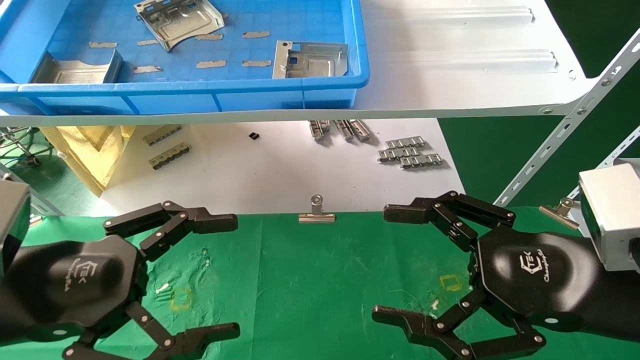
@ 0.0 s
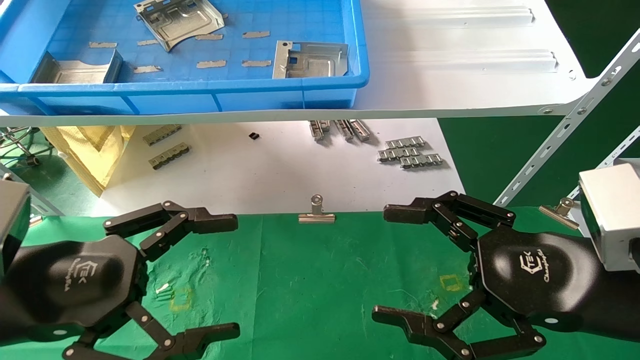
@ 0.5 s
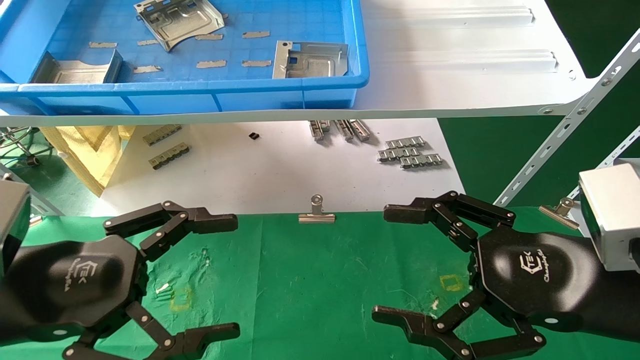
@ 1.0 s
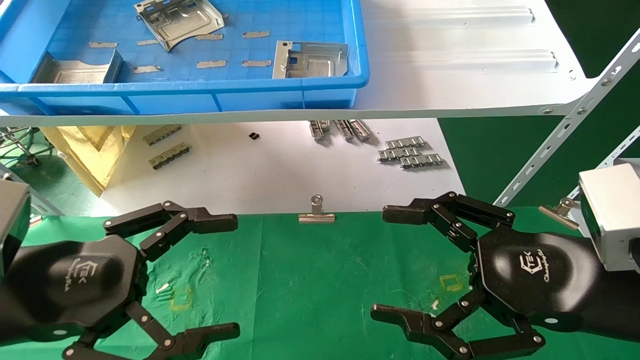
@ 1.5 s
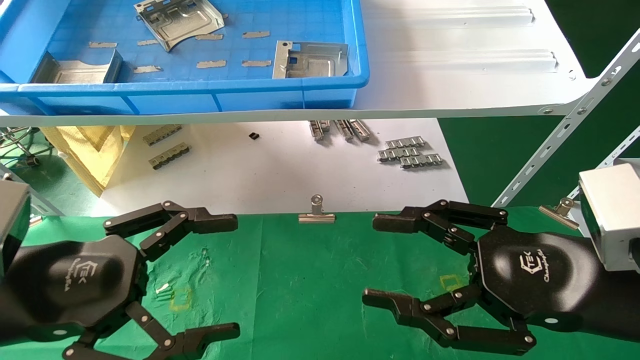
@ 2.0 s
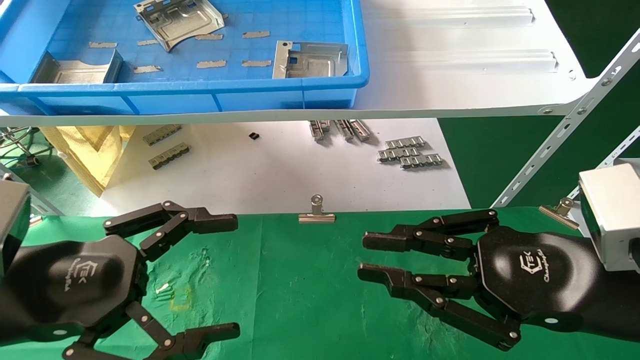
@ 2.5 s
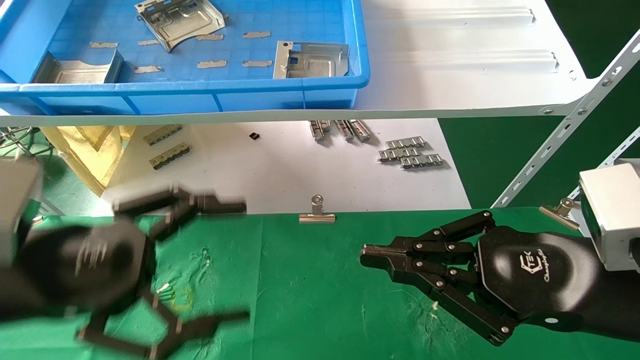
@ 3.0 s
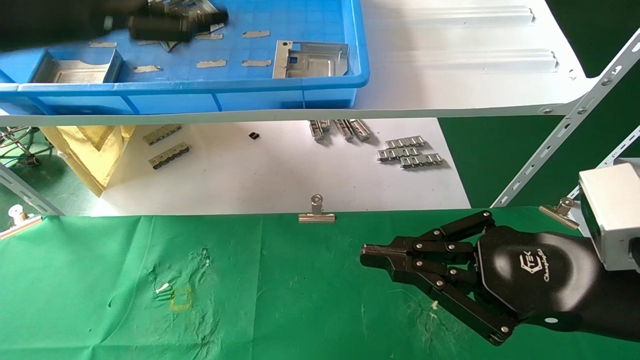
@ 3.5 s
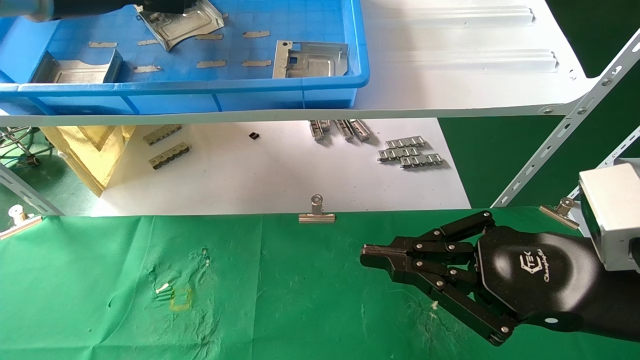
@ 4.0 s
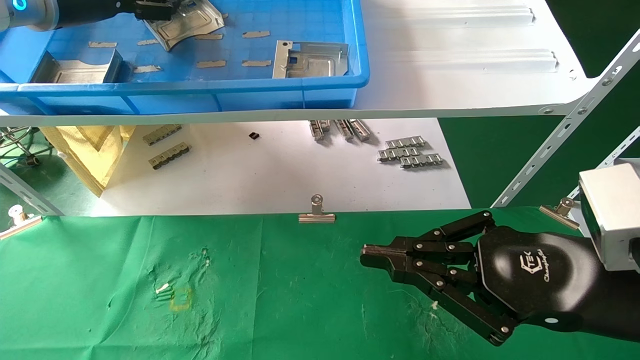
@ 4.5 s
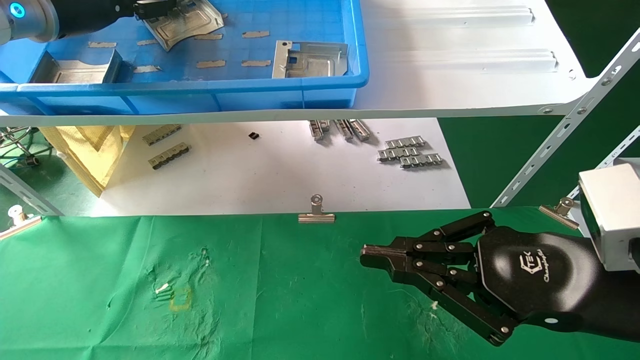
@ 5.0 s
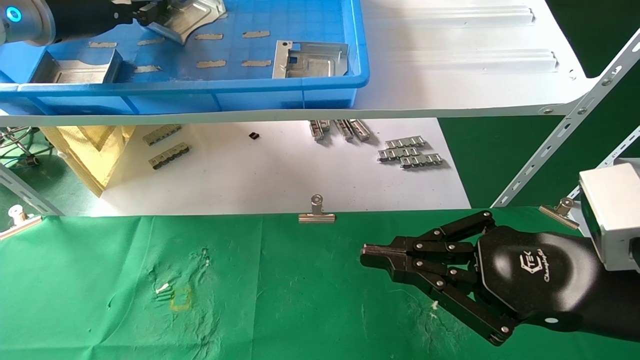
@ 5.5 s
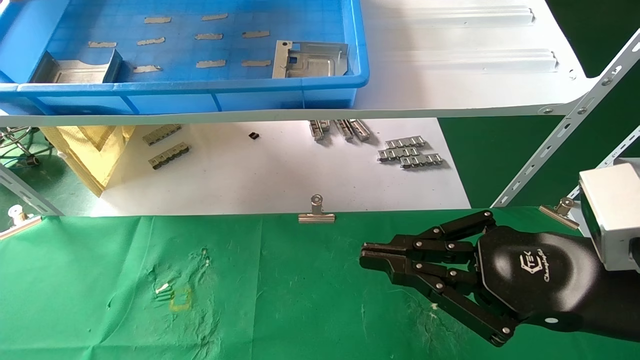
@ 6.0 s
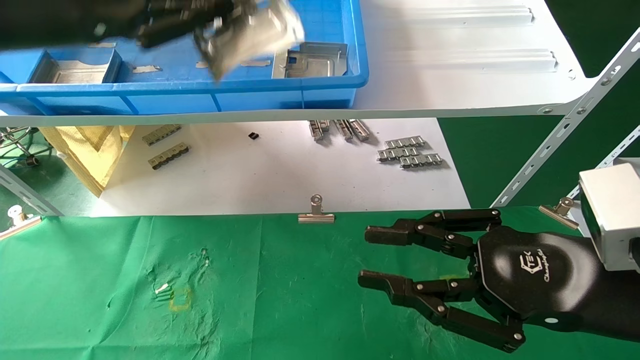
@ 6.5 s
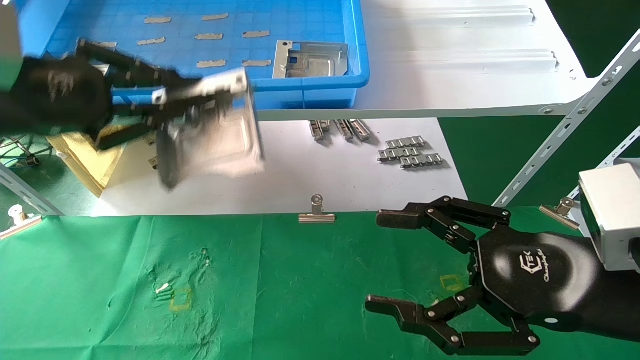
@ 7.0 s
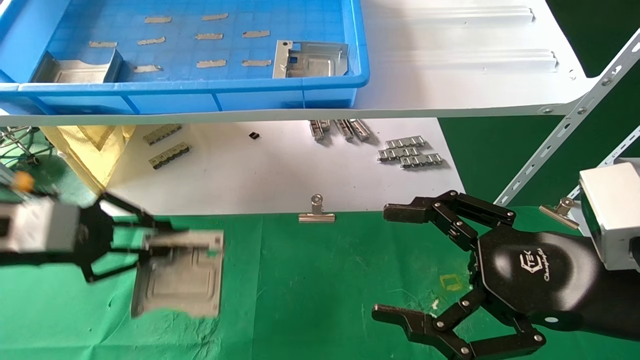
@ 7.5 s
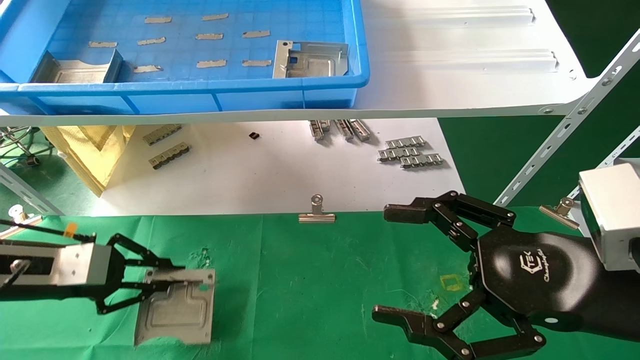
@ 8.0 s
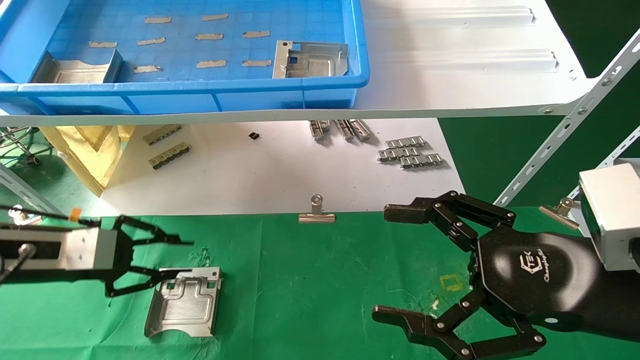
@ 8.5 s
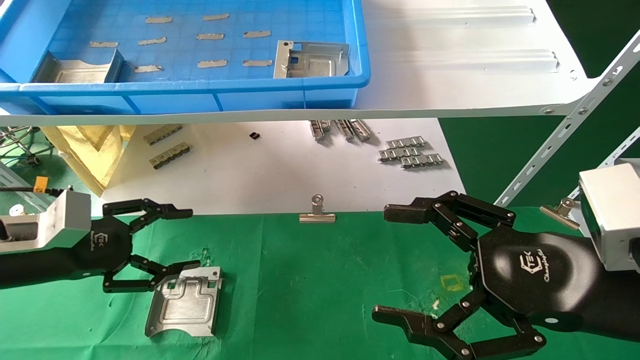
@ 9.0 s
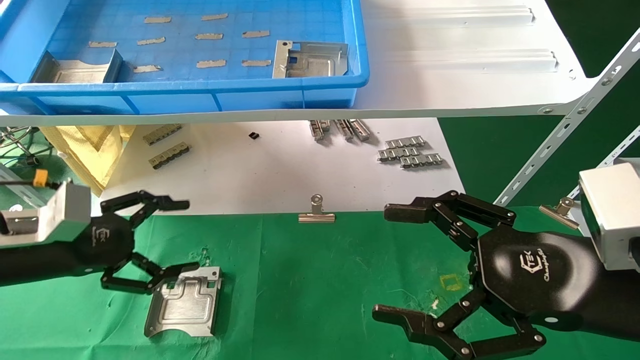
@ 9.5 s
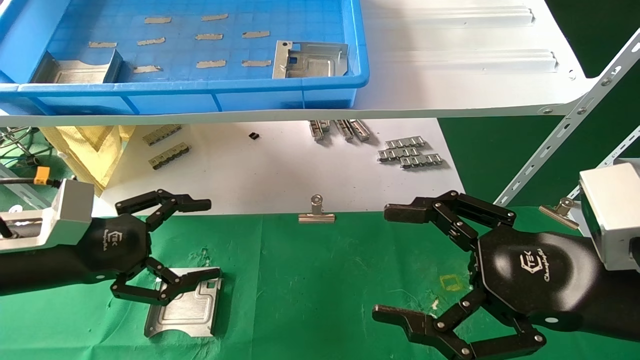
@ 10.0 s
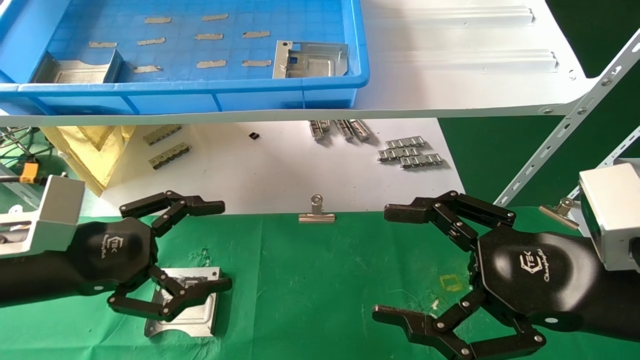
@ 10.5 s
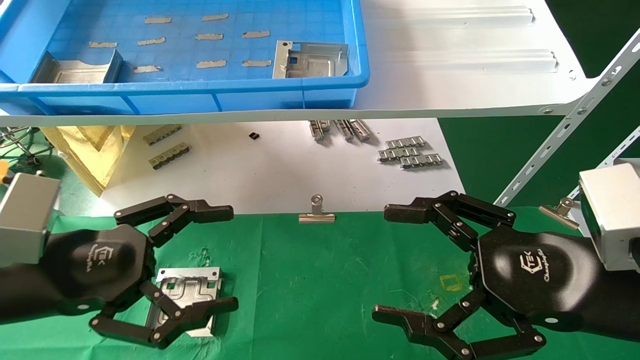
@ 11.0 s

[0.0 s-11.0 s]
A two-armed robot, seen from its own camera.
Task of the whole recording: use the mechanical arm to pick up the parts and place them on the table.
Step, 2.0 to 5.0 s: Pick up the hard drive bracket from the feeding area.
Step, 5.5 to 8.5 s: Place the hard drive bracket into the box.
0.0 to 2.0 s: Both grippers stay about where they are.
2.0 to 3.5 s: The left gripper travels upward and forward by about 25 cm, while the right gripper closes its fingers.
3.5 to 5.5 s: The left gripper travels forward by approximately 10 cm, and closes its fingers.
5.5 to 7.5 s: The left gripper is displaced downward and backward by some 25 cm; the right gripper opens.
7.5 to 9.0 s: The left gripper opens its fingers.
9.0 to 11.0 s: The left gripper is displaced backward and to the right by some 10 cm, and opens its fingers.

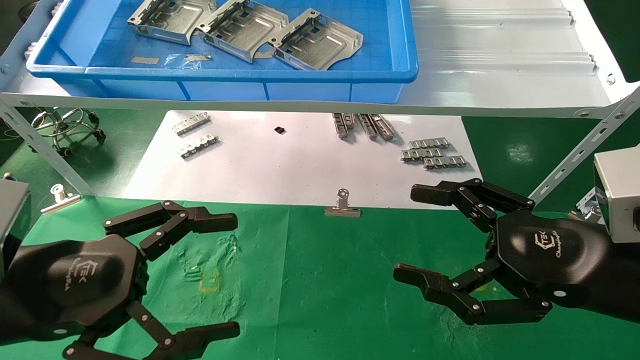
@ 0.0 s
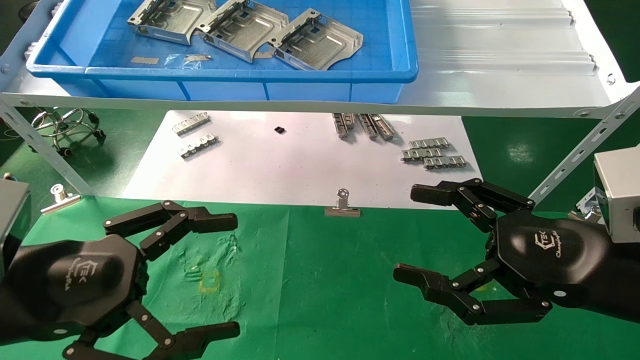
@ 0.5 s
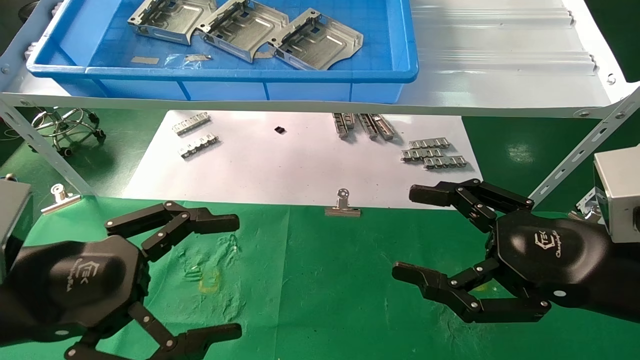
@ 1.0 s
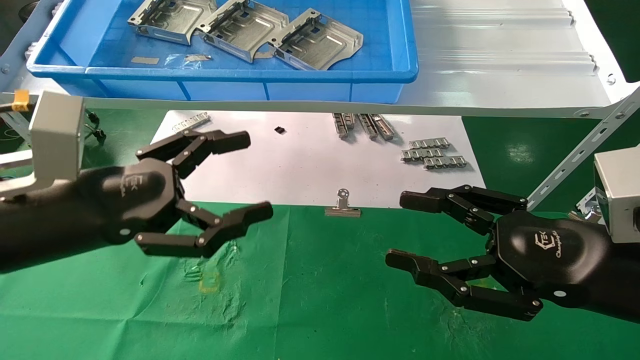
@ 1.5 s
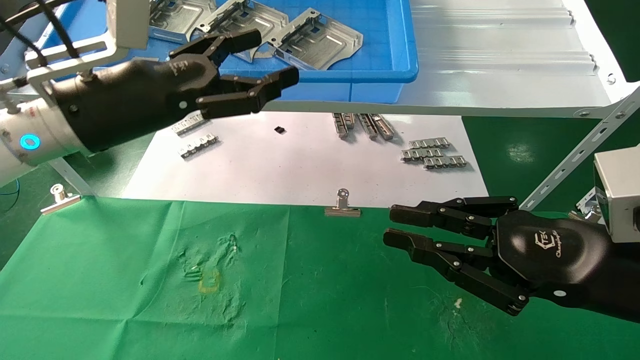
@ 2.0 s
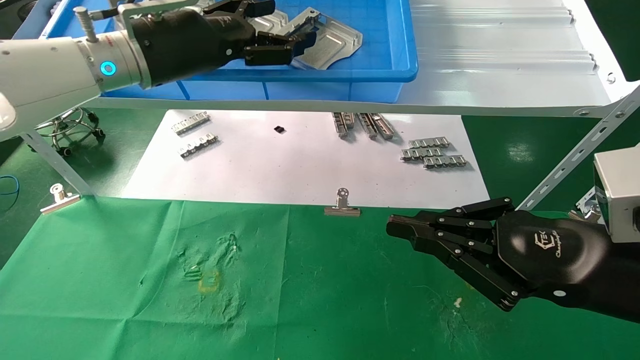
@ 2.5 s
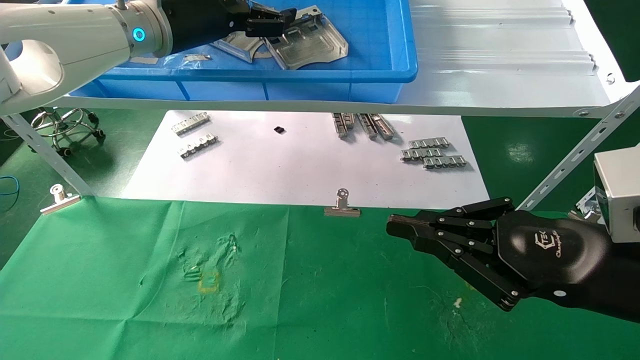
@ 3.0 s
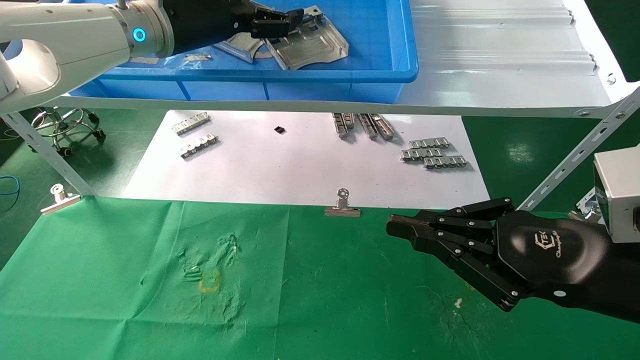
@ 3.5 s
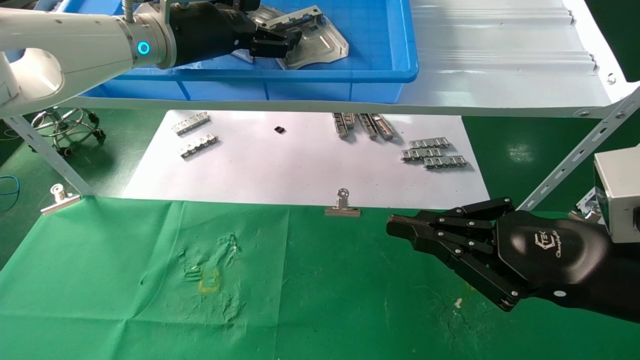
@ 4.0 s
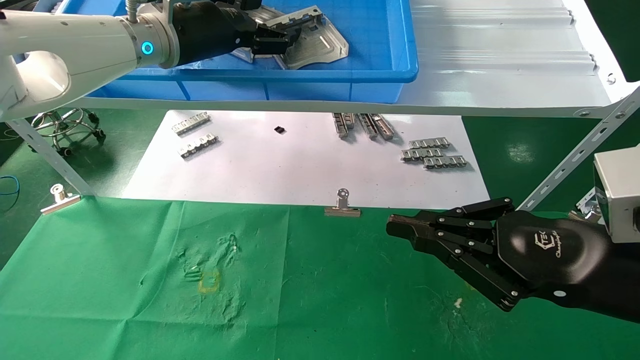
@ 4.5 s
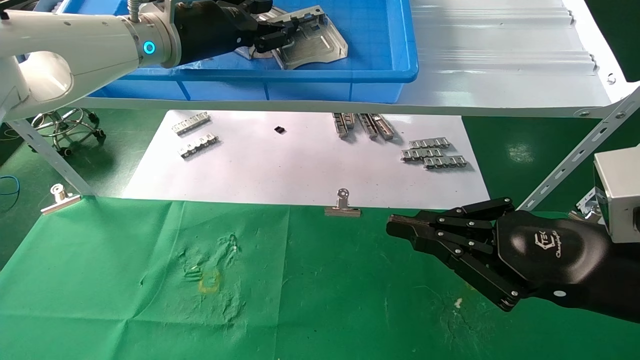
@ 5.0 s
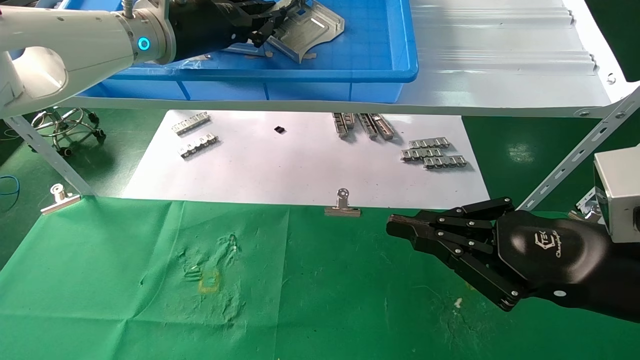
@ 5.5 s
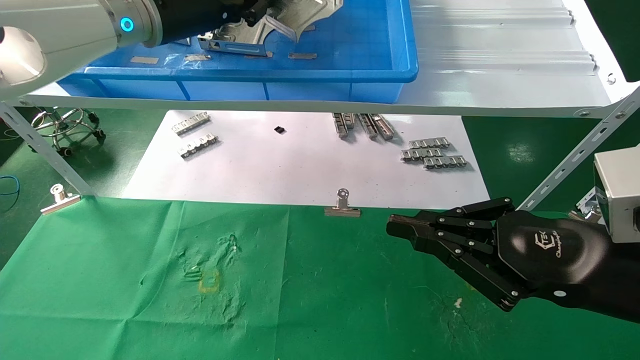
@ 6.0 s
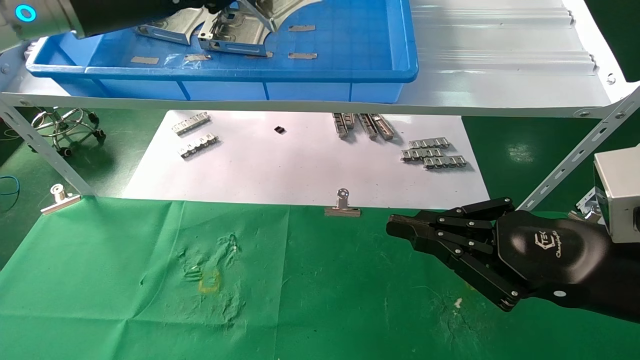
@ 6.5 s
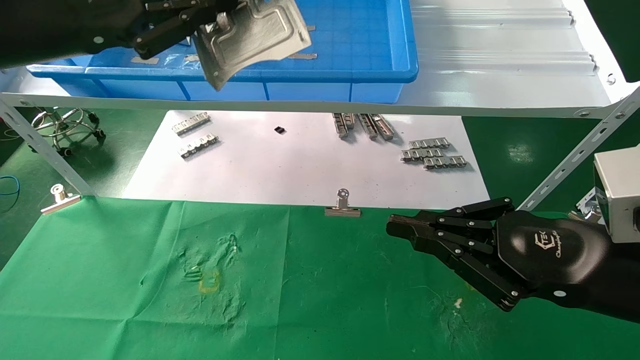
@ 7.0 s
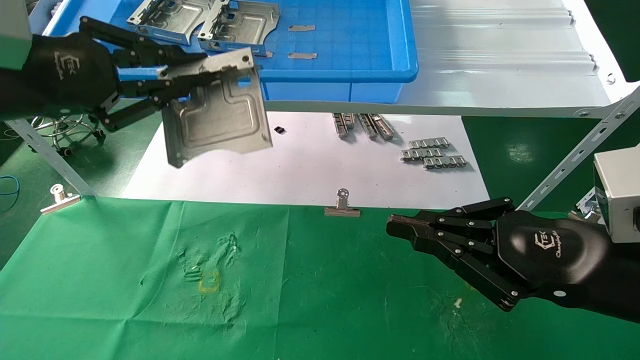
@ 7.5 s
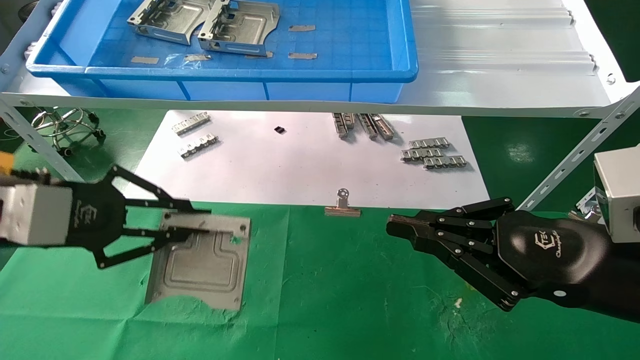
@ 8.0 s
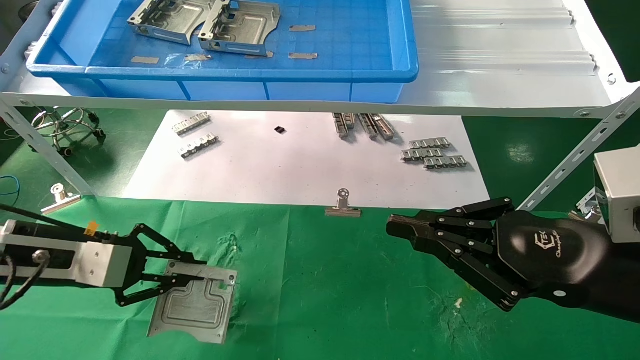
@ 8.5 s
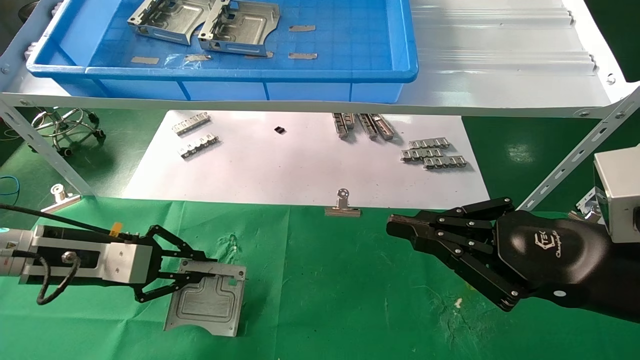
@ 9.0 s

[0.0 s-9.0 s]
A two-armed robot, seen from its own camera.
Task of the whole recording: use the mechanical arm to pick up the parts and place them on the table.
Step, 1.5 to 5.5 s: Pick up the hard drive bracket from the feeding area.
0.0 to 2.0 s: The right gripper closes up, while the left gripper is displaced forward and upward by some 20 cm.
2.0 to 4.5 s: The left gripper moves forward, upward and to the right, some 15 cm.
4.5 to 7.0 s: The left gripper is displaced backward and to the left by roughly 15 cm, and closes its fingers.
7.0 to 9.0 s: The left gripper goes approximately 25 cm downward.
